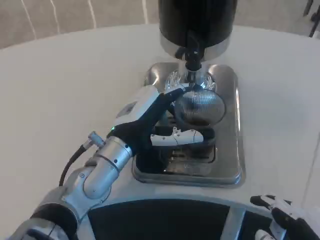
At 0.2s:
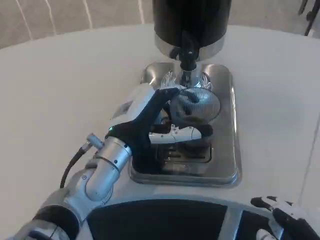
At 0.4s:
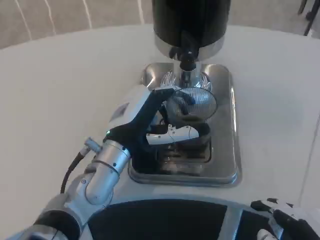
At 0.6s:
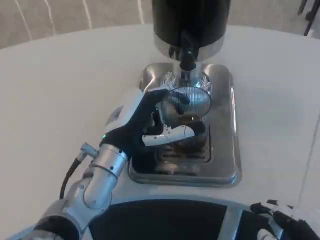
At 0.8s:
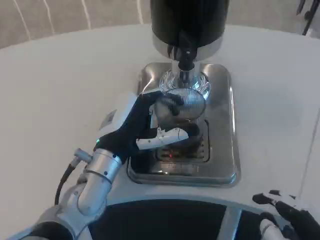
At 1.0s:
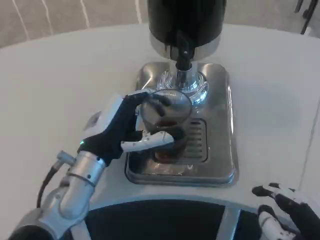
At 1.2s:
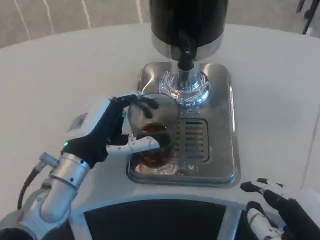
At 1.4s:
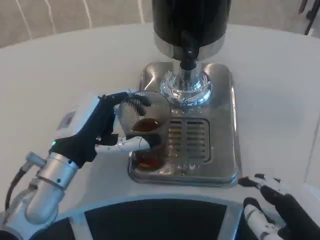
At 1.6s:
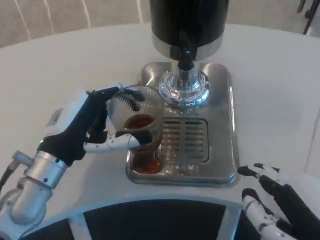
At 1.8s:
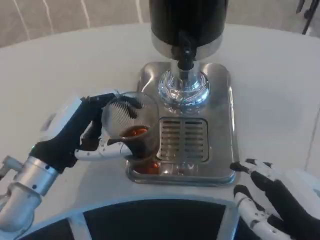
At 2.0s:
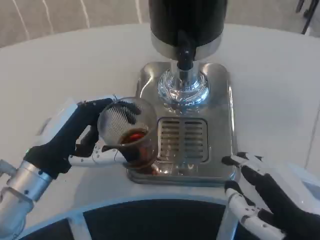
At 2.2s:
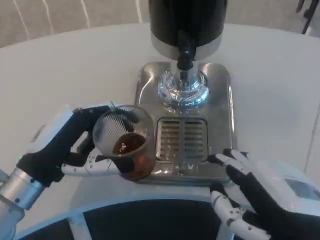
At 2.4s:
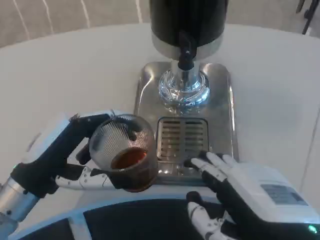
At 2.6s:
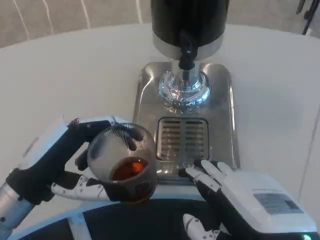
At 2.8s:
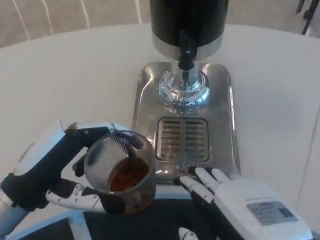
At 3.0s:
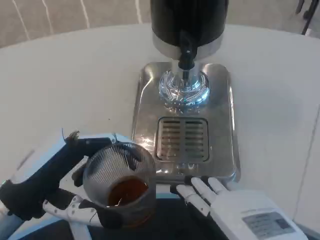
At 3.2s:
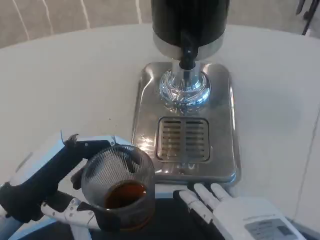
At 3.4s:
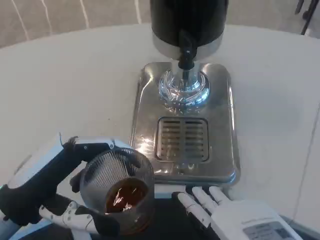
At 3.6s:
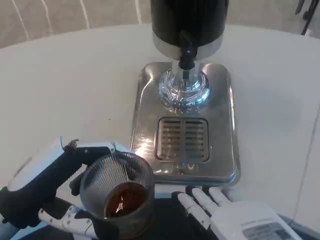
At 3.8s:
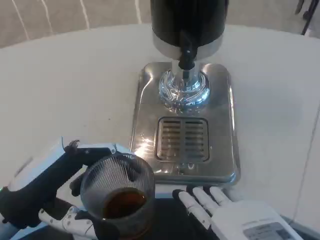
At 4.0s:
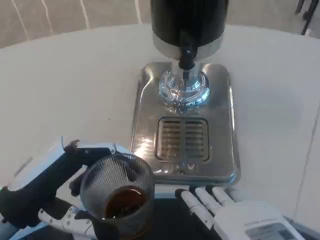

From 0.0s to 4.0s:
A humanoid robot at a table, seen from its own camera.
Task of the whole recording: Grasp the cup under the faucet to collect the drink, then remove the cup.
From 0.0s to 1.4s: The left hand is displaced to the left by approximately 10 cm.
From 1.4s to 2.6s: The left hand shifts roughly 5 cm backward.
